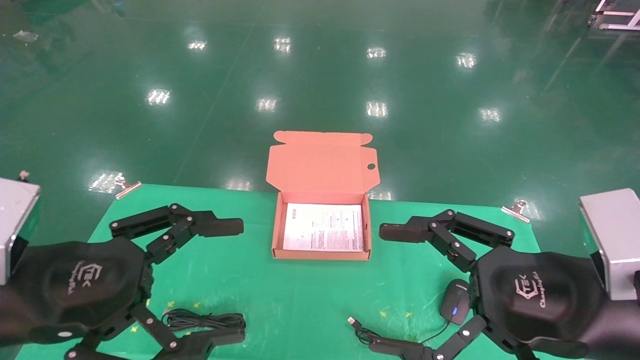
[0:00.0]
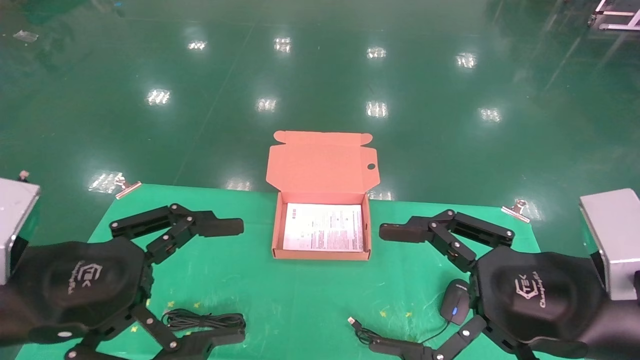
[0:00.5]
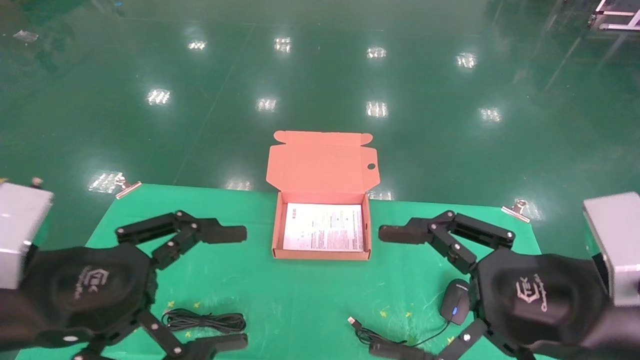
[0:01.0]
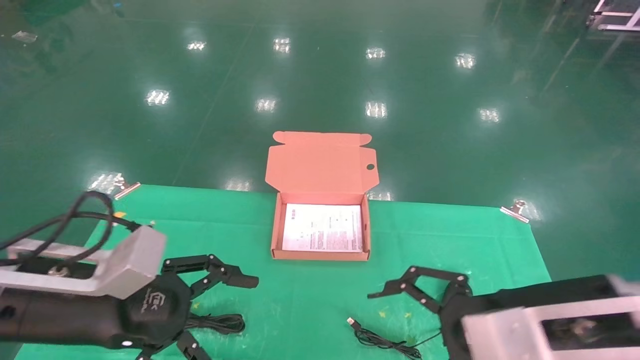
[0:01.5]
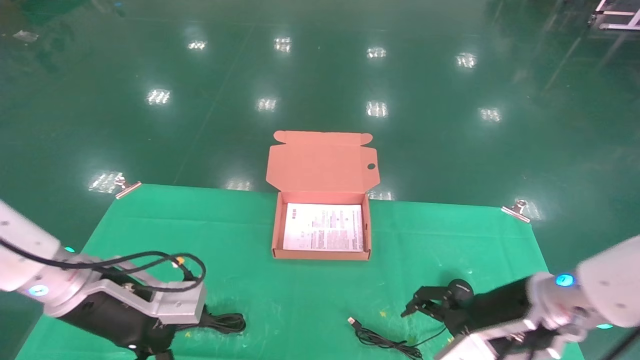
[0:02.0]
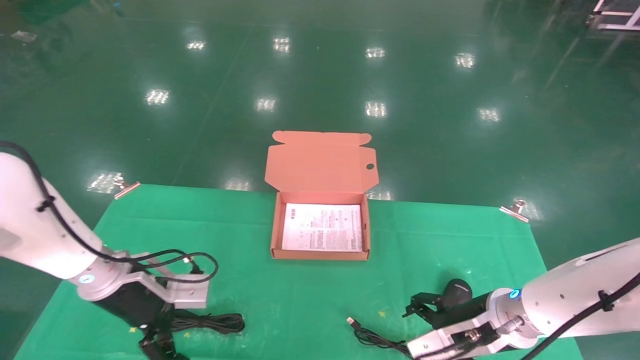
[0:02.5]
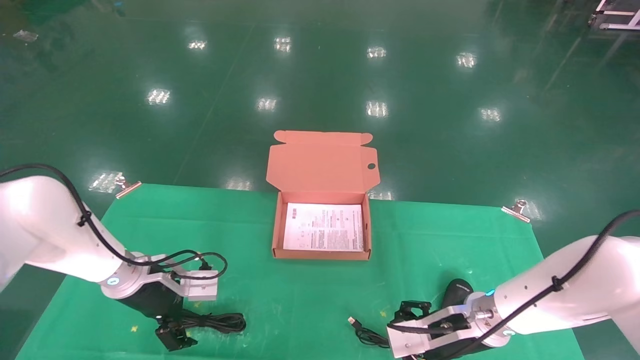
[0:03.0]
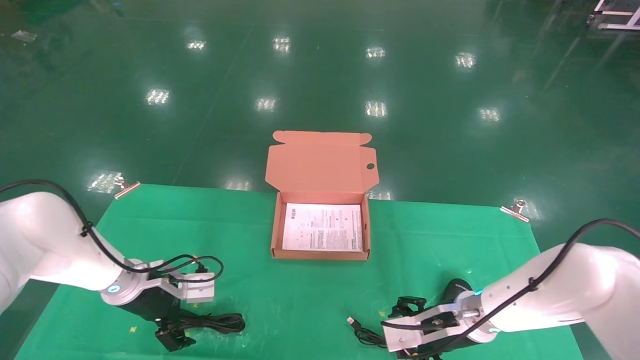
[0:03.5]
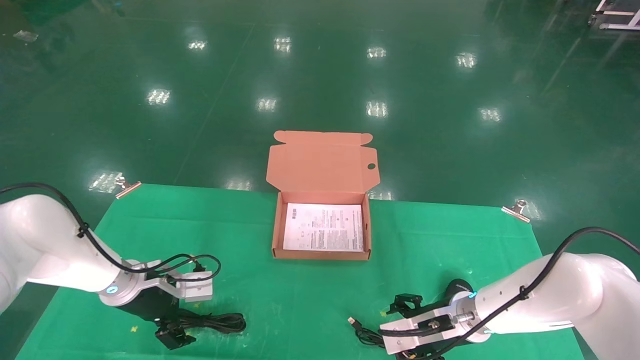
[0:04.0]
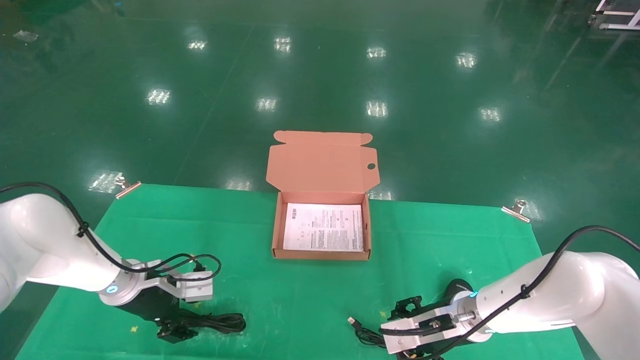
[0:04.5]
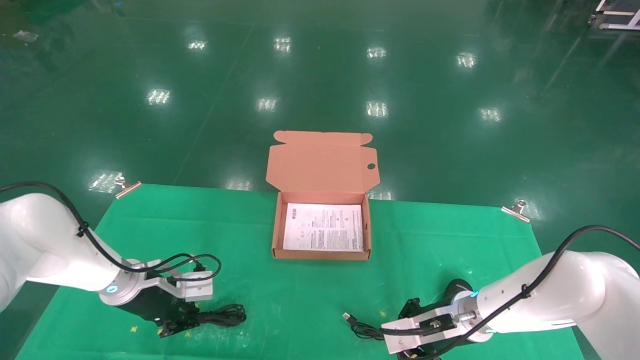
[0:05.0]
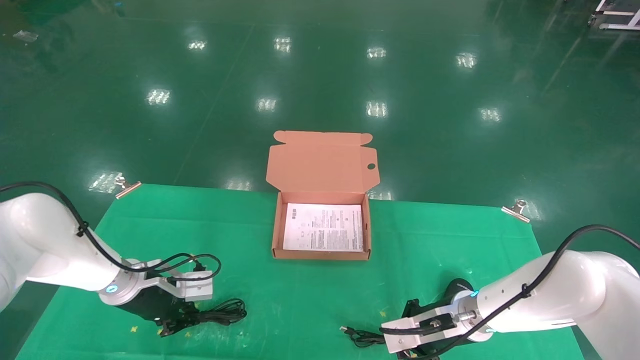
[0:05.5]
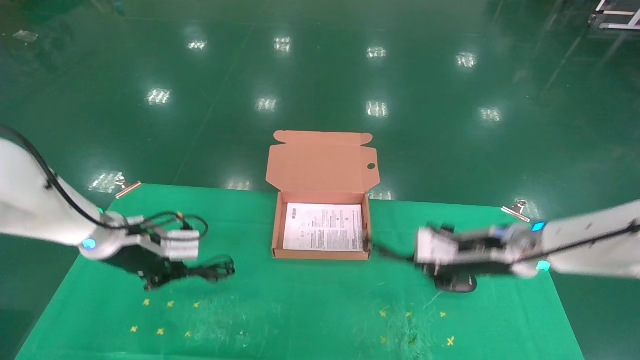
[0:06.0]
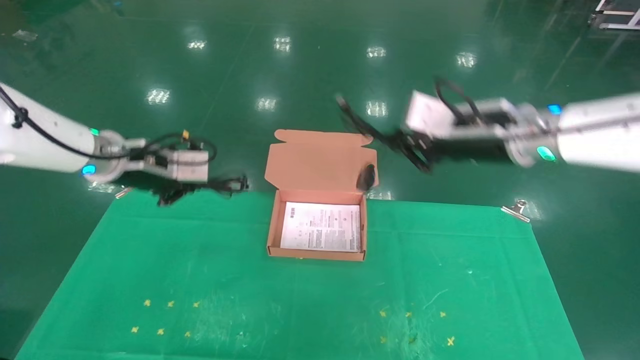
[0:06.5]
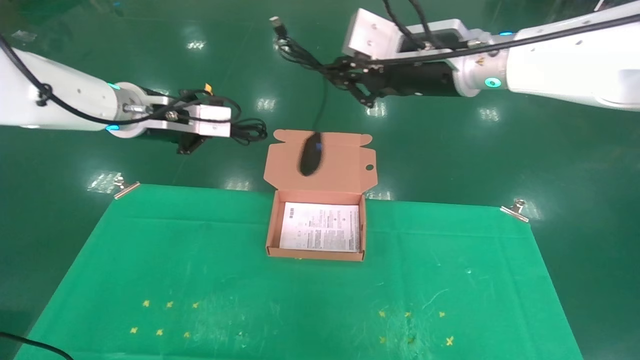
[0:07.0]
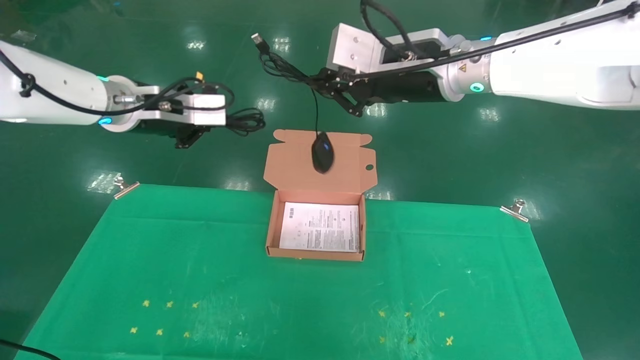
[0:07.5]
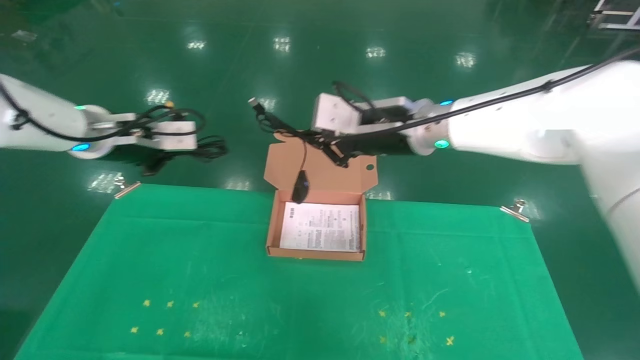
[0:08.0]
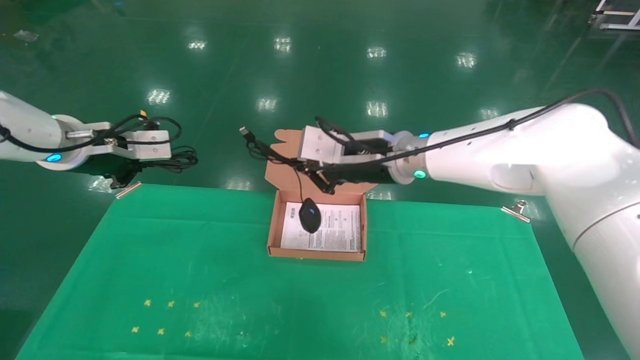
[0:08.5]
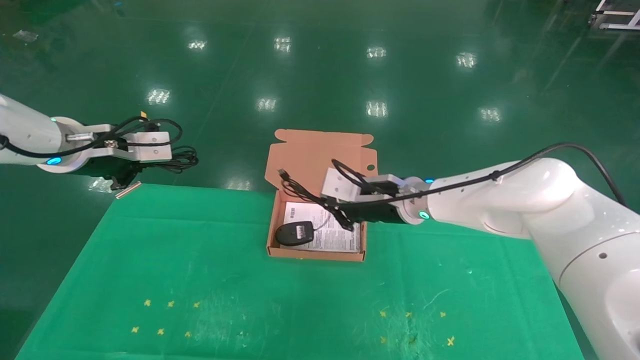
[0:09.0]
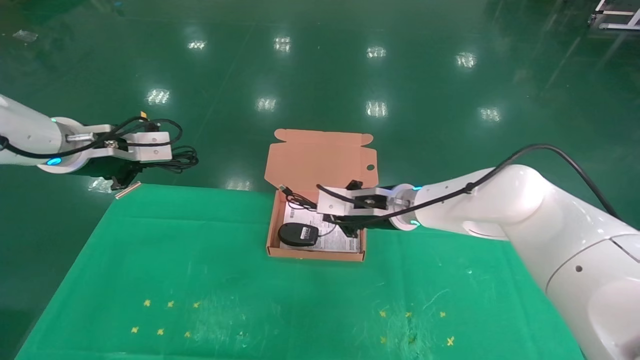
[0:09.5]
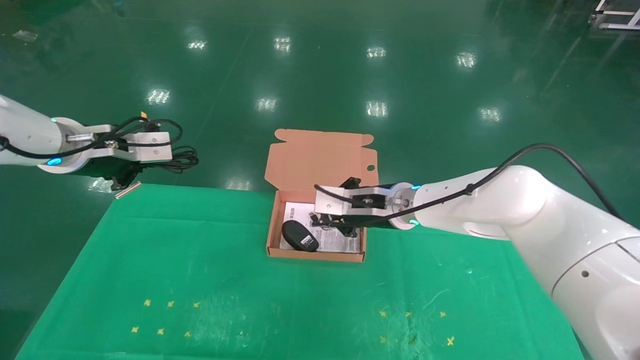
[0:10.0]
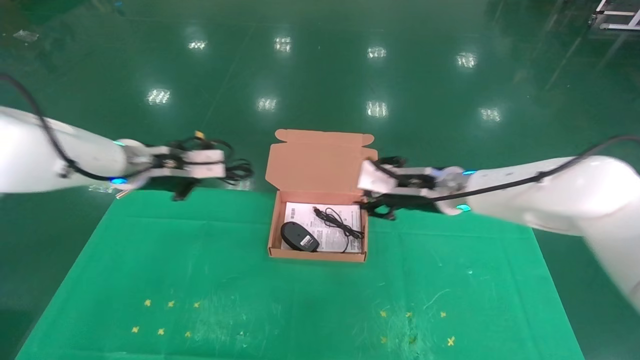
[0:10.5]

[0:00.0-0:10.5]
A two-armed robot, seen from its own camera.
Task of the whole recording: grasp data cable left put into box grasp mouse right put into box.
Step, 0:01.0 to 0:06.5: Grab and pick up both the mouse and power cord from the accessory packaging area at the same time.
0:00.0 to 0:02.0: The two grippers go about 15 cm forward and downward.
0:02.0 to 0:04.0: The two grippers go roughly 15 cm forward and downward.
0:04.0 to 0:06.5: Both grippers travel together upward, approximately 25 cm. The right gripper closes, while the left gripper closes its fingers.
0:06.5 to 0:08.5: The right gripper shifts some 10 cm to the left and downward. The left gripper ends up approximately 5 cm from where it was.
0:08.5 to 0:10.5: The left gripper is displaced to the right by about 5 cm; the right gripper travels to the right and downward by about 10 cm, and opens its fingers.

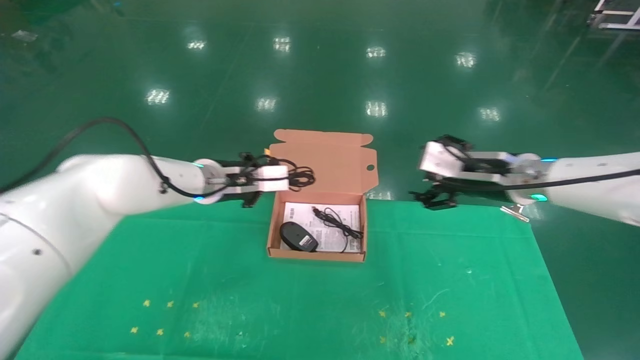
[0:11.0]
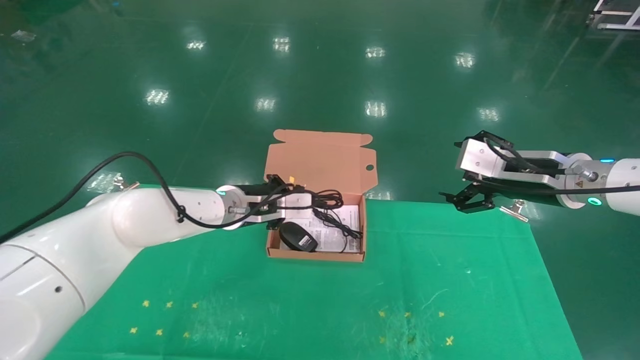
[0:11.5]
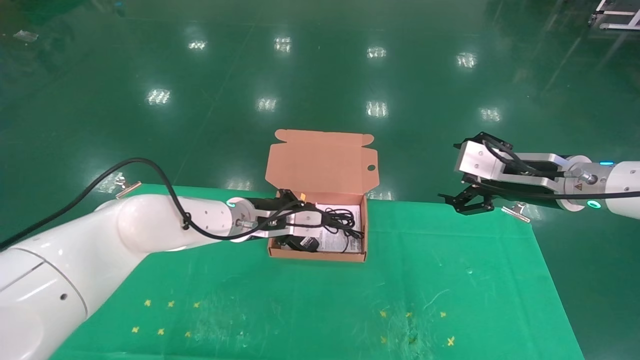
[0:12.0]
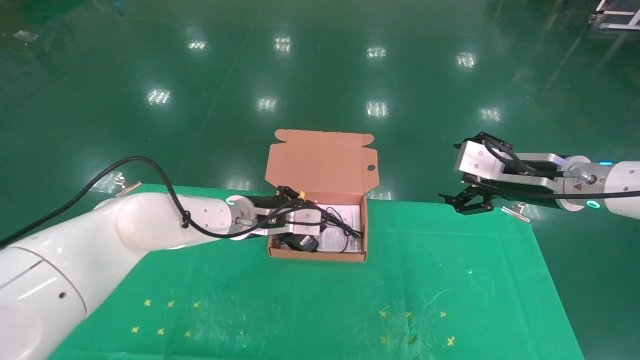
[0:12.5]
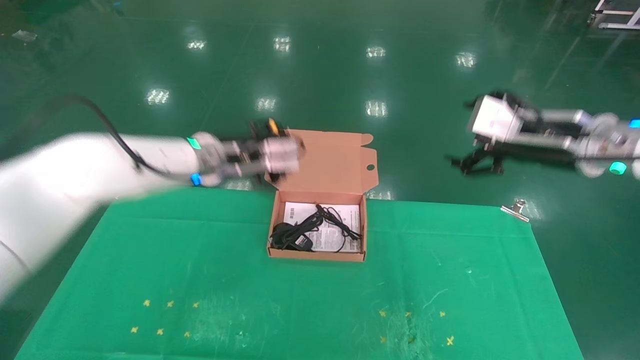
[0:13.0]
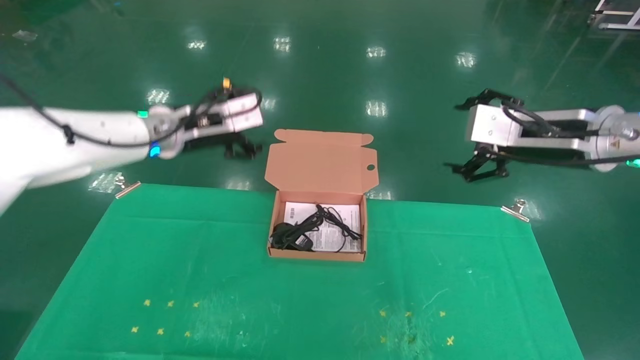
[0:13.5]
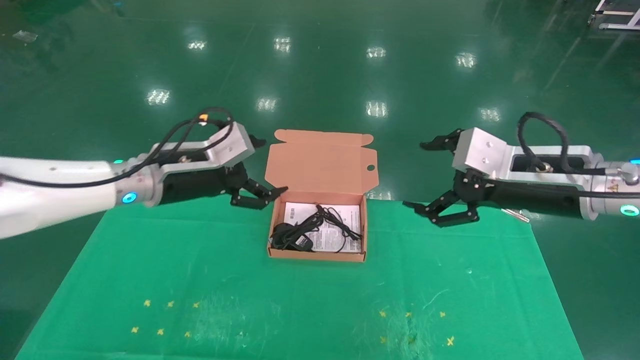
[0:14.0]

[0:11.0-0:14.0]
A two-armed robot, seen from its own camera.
Task of the whole recording: grasp data cable left put into box grasp mouse right put into box.
0:11.0 to 0:12.5: The left gripper travels downward and to the right by roughly 10 cm; the right gripper ends up roughly 5 cm from where it was.
0:12.5 to 0:14.0: The left gripper travels to the left, upward and backward by about 15 cm, and opens its fingers. The right gripper heads backward, covering roughly 5 cm.
